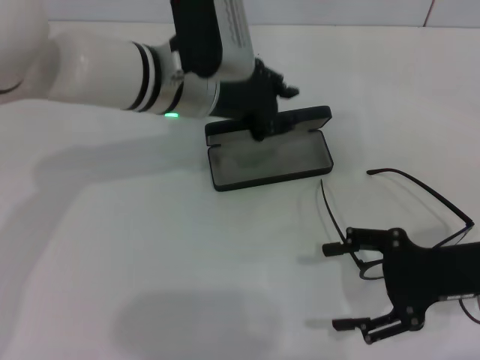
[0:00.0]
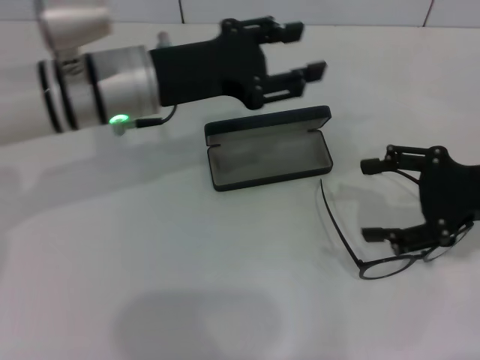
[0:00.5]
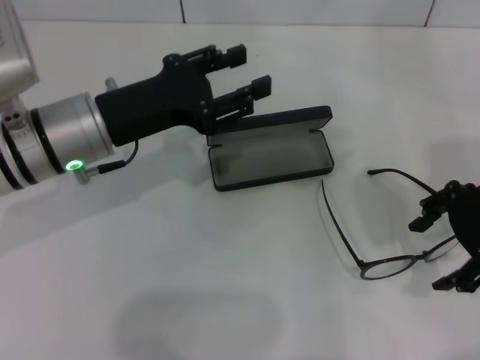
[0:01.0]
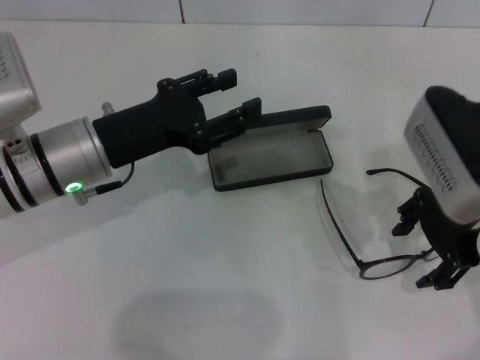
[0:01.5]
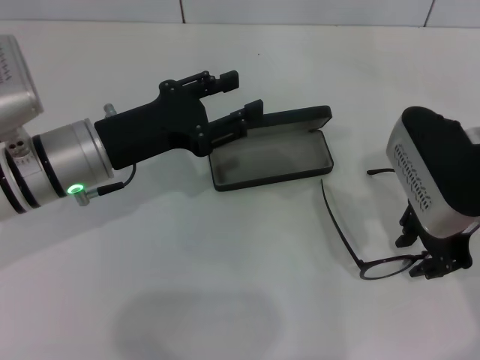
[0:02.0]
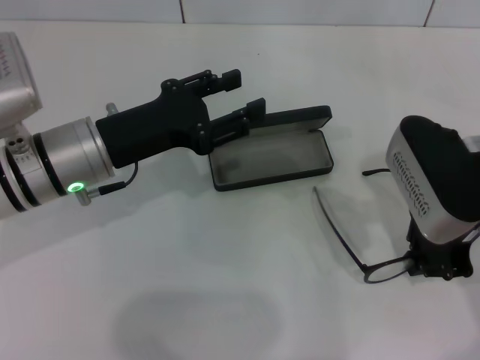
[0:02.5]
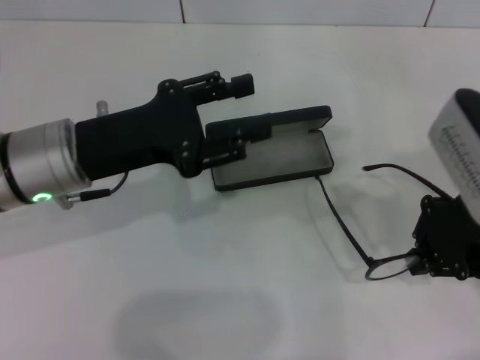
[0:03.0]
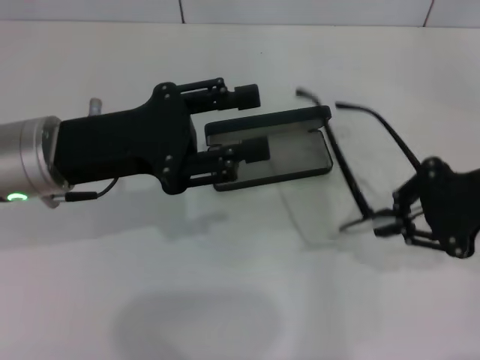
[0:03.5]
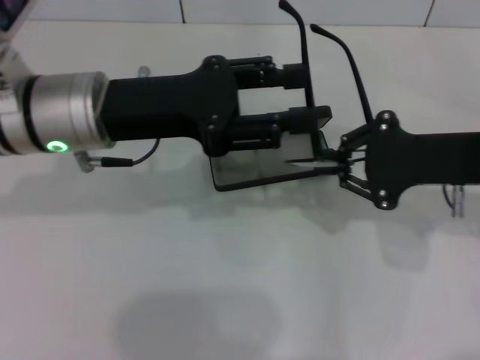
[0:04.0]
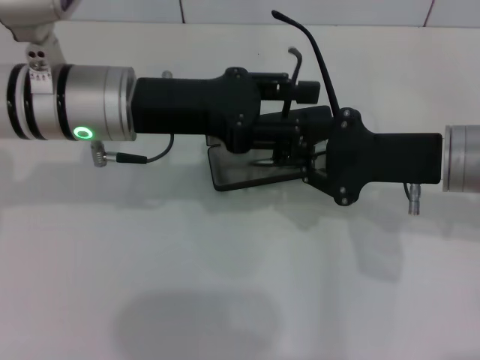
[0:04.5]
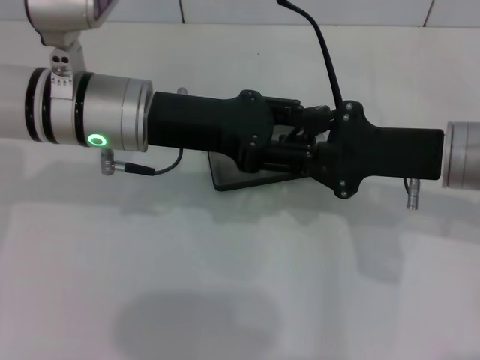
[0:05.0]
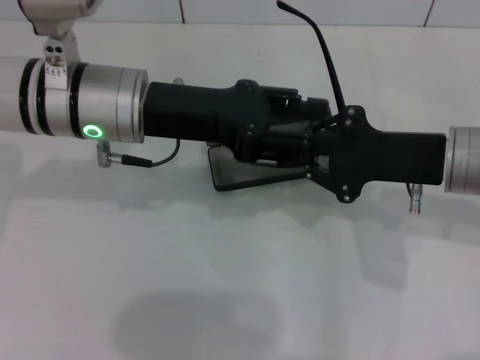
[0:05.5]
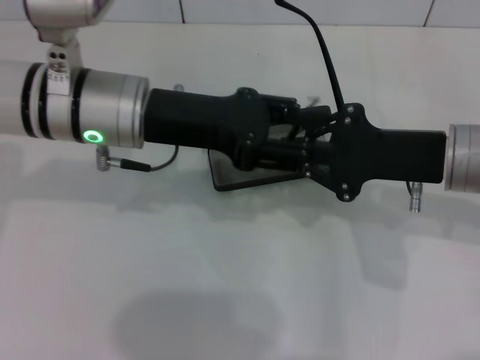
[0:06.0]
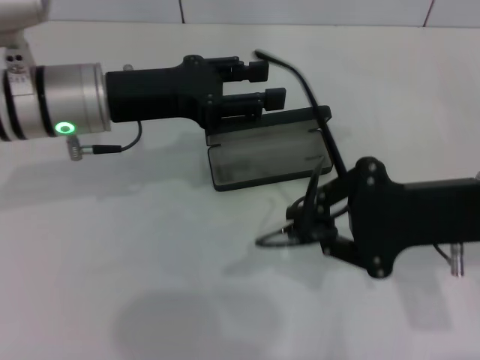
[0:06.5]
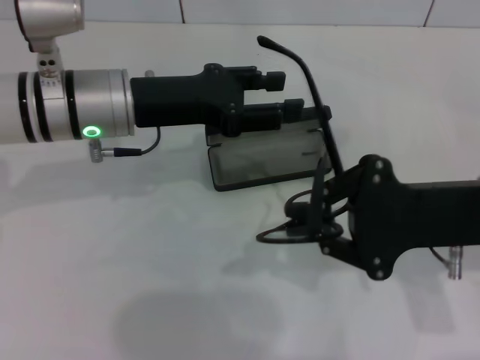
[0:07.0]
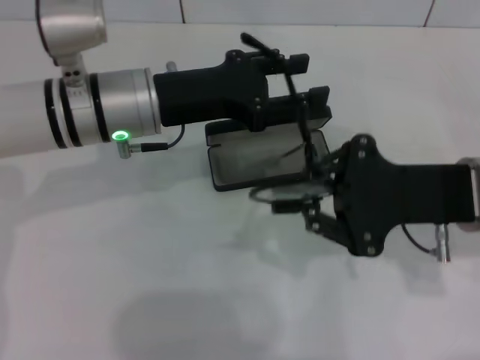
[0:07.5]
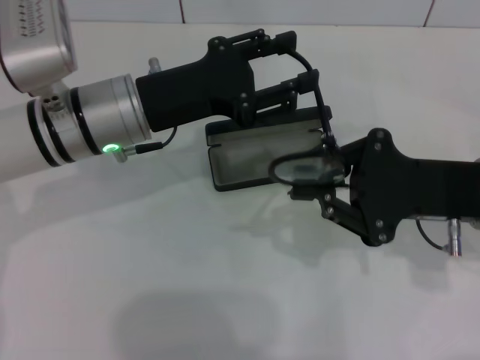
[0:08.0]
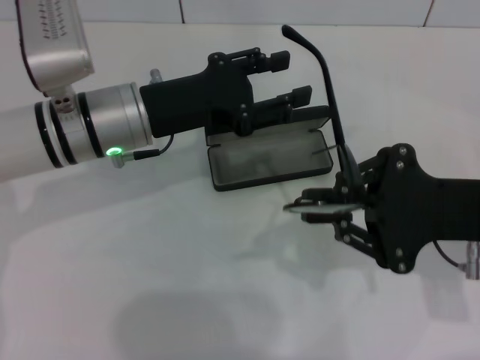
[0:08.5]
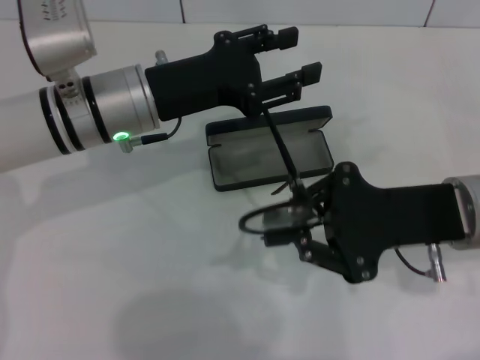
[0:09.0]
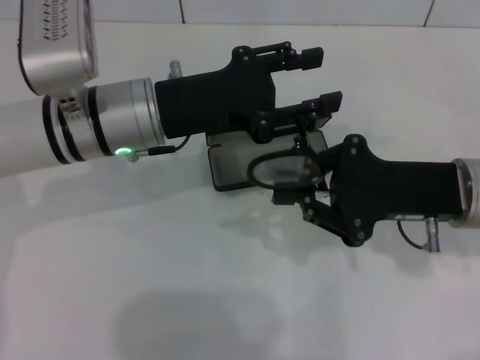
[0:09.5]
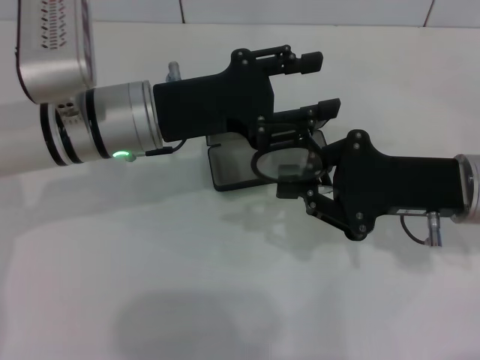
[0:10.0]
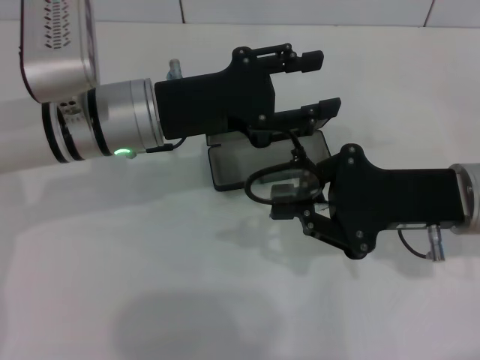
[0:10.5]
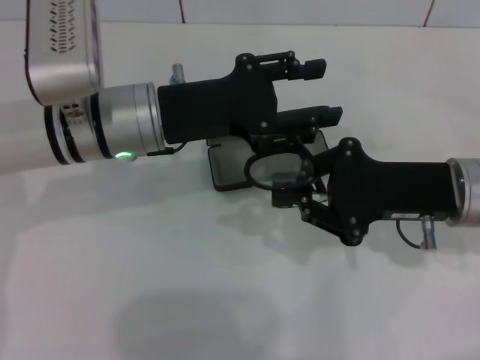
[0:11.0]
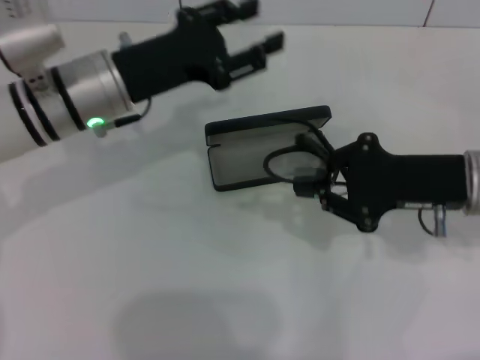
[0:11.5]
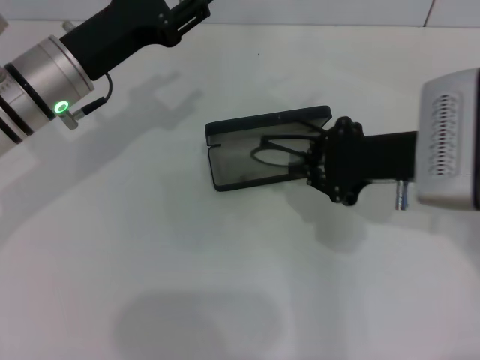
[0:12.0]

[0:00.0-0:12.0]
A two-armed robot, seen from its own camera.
Step, 0:01.5 to 0:02.0: Grab the eyeglass frame with your right hand.
Step, 0:02.5 to 0:11.0: Fold the frame with your left hand.
0:00.0 to 0:02.0: The left gripper travels to the left and backward by roughly 10 cm, and opens its fingers. The right gripper moves upward, to the left and forward, about 15 cm, and closes up.
0:02.0 to 0:04.0: The left gripper heads upward, covering roughly 5 cm, while the right gripper closes.
0:08.0 to 0:10.0: The grippers move only a little.
0:10.0 to 0:12.0: The left gripper is displaced to the left by approximately 5 cm.

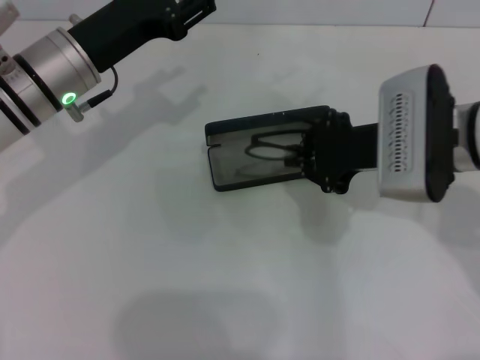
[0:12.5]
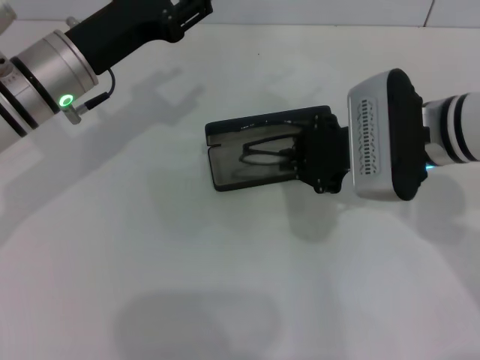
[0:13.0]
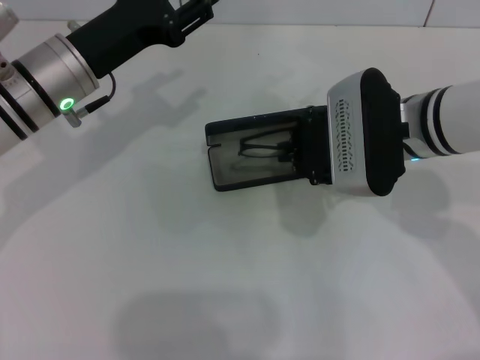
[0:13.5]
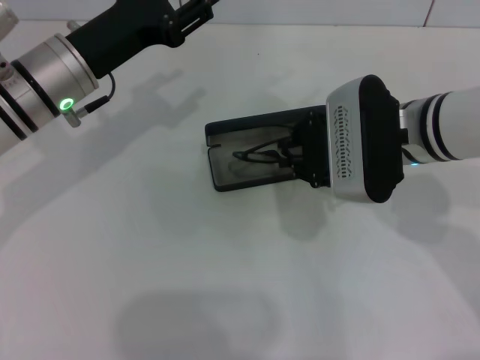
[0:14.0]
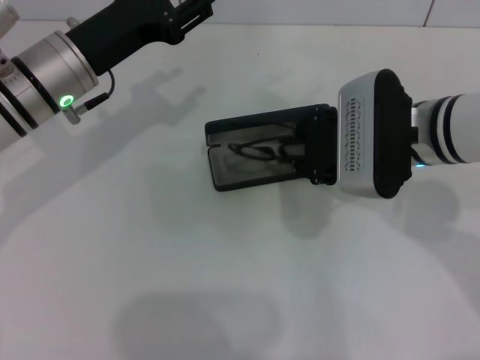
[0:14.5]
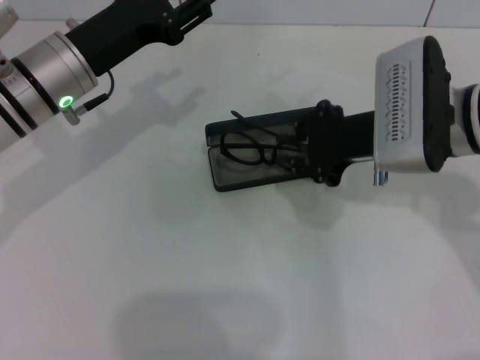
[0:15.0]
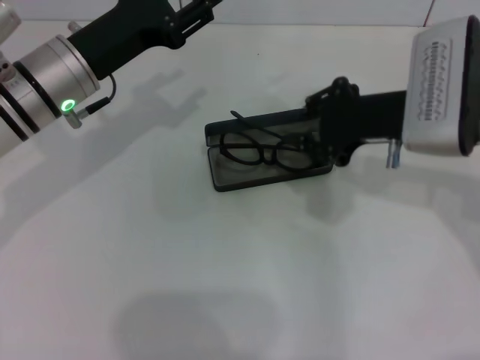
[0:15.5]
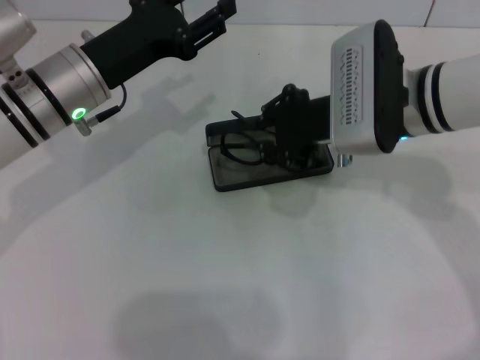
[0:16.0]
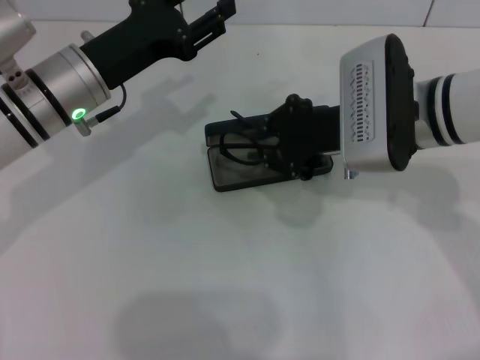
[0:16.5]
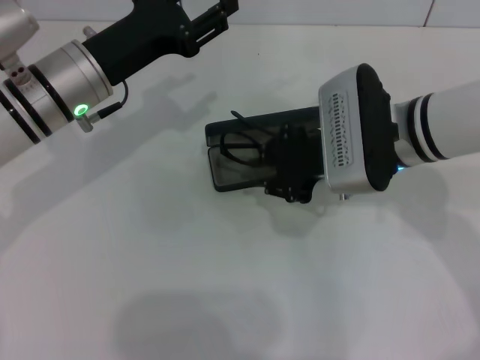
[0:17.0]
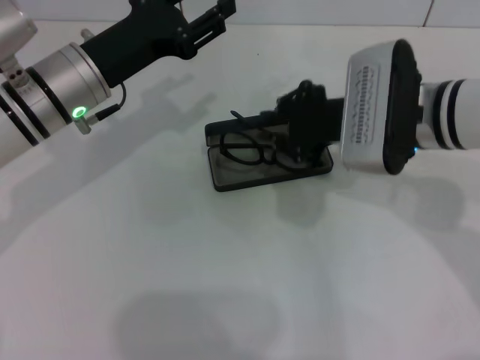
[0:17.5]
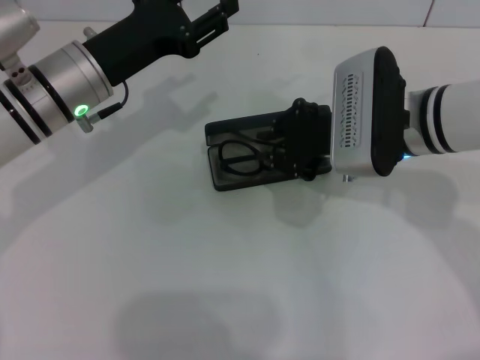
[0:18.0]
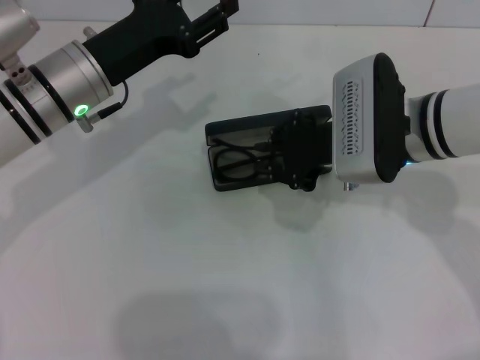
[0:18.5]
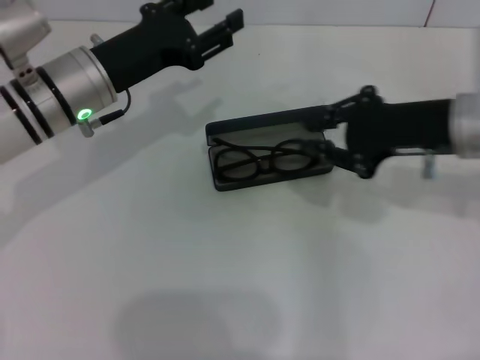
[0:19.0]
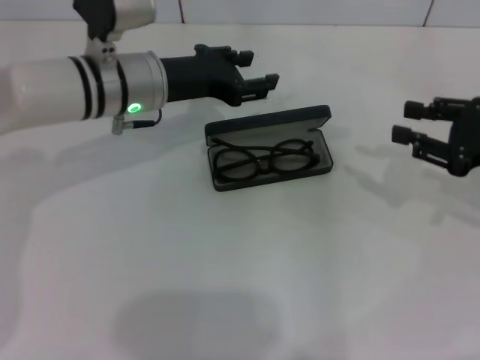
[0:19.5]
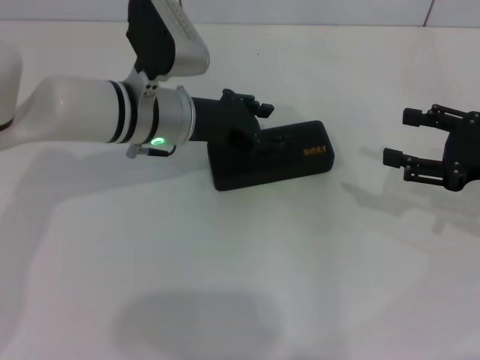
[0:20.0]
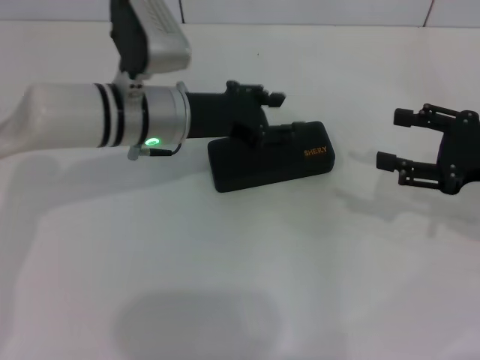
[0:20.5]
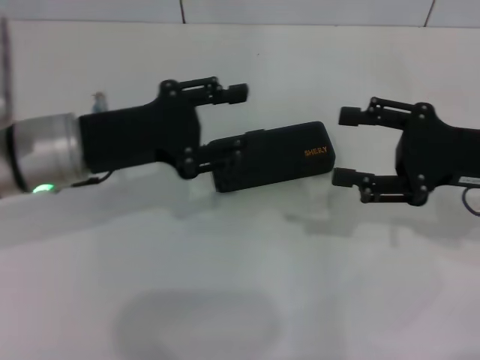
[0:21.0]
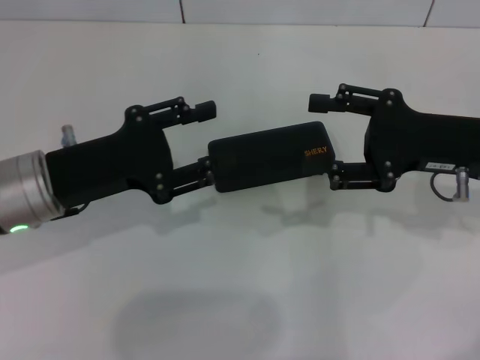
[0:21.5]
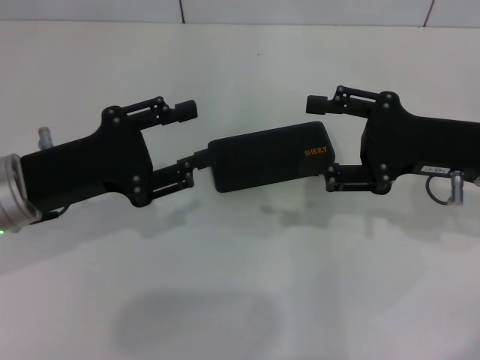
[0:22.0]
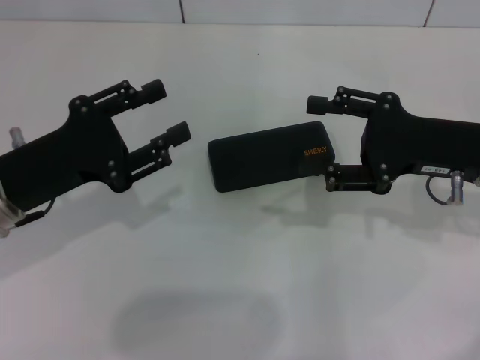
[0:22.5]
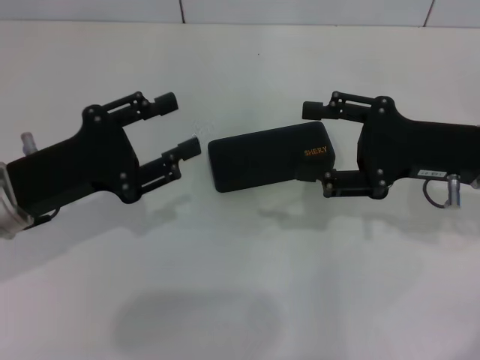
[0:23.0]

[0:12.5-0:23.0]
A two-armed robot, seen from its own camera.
Step, 0:12.5 to 0:18.5: Put the glasses into the case with your right hand.
Step, 0:19.0 to 0:20.5: Close the glasses case with your left hand.
0:12.5 to 0:16.5: The grippers move only a little.
0:16.5 to 0:19.0: The right gripper heads to the right, covering approximately 10 cm.
0:19.0 to 0:21.0: The right gripper moves to the right, approximately 5 cm, and opens up. Meanwhile the left gripper moves backward, some 5 cm.
0:21.0 to 0:23.0: The left gripper moves about 5 cm.

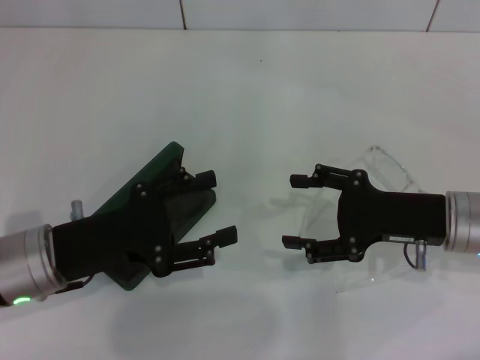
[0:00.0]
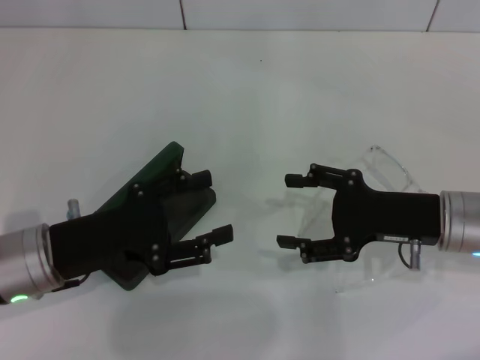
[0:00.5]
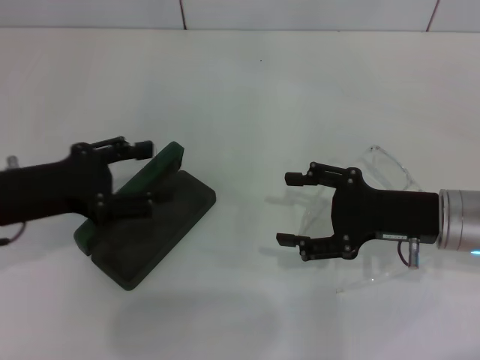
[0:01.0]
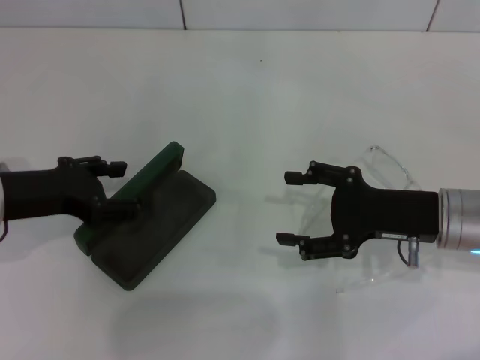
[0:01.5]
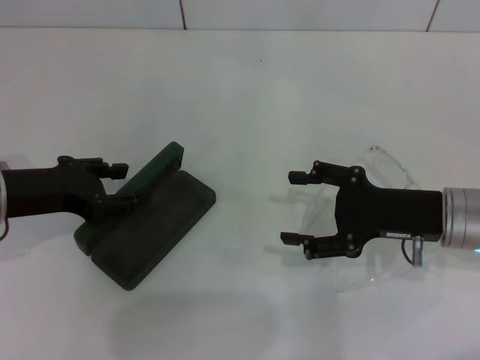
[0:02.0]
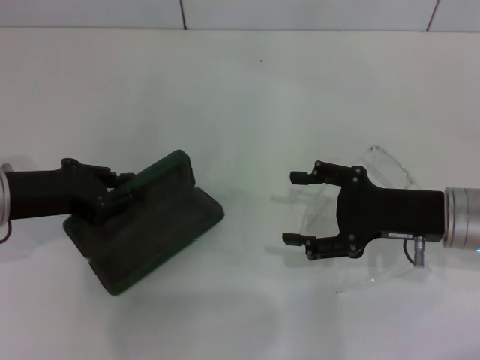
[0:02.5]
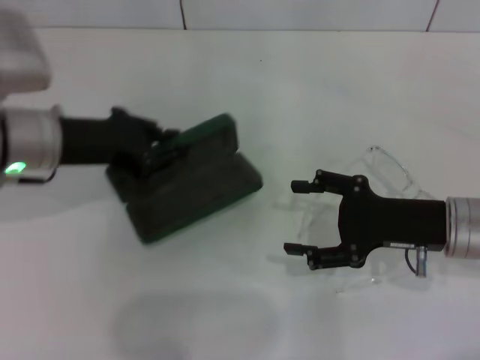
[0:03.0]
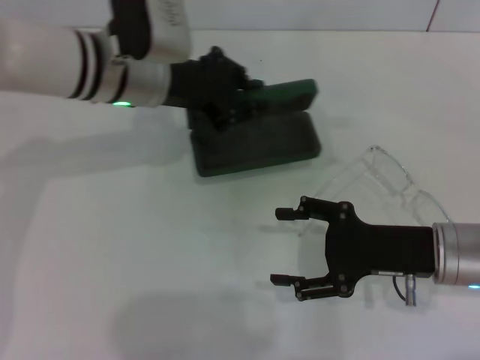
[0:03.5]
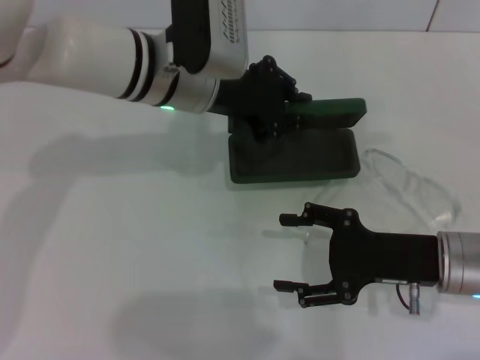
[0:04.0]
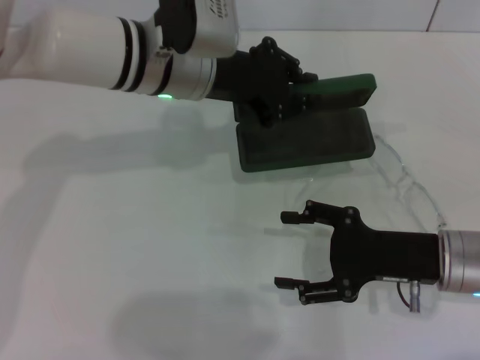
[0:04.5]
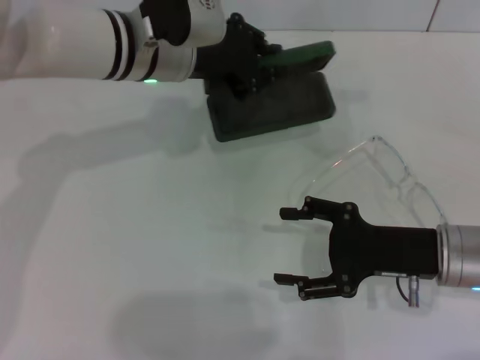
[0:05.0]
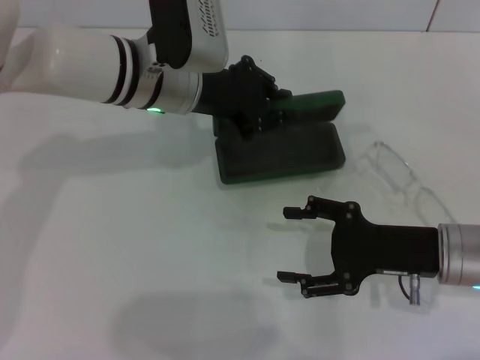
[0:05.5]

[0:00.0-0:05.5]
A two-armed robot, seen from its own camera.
Step, 0:00.0 to 0:02.0: Grab the glasses case with your left hand.
0:00.0 to 0:02.0: The left gripper goes some 5 cm forward.
0:02.0 to 0:03.5: The left gripper shifts some 20 cm to the right and forward, and closes.
0:03.5 to 0:05.5: There are only small adjustments of the grippers.
